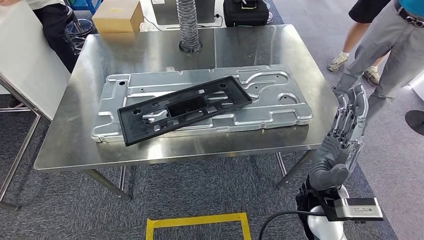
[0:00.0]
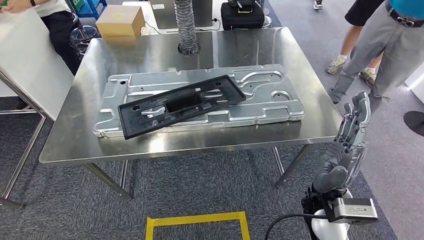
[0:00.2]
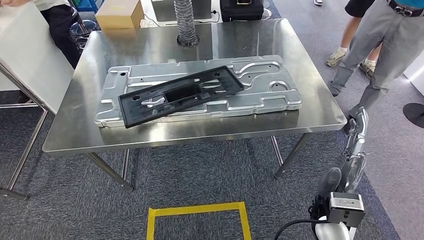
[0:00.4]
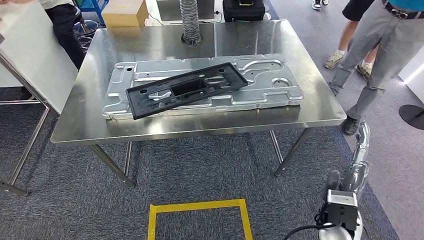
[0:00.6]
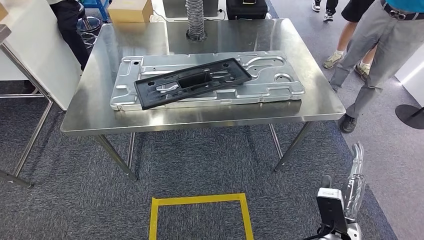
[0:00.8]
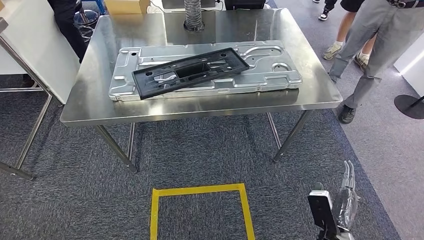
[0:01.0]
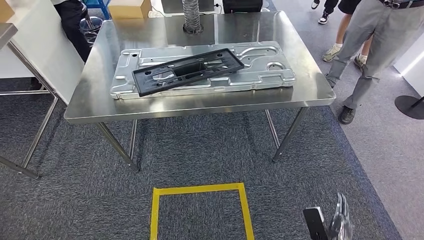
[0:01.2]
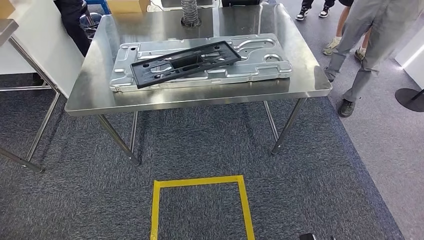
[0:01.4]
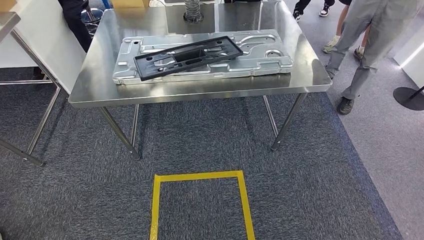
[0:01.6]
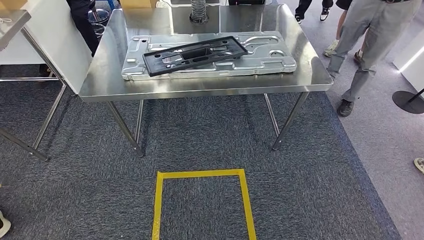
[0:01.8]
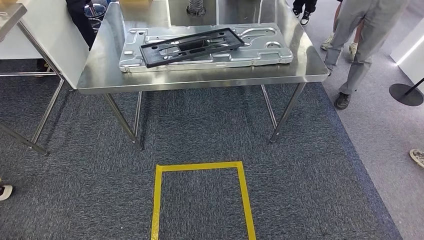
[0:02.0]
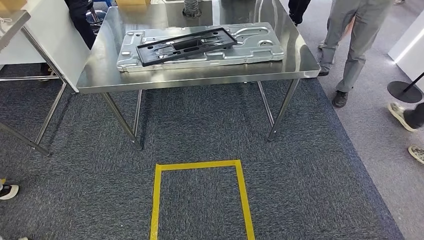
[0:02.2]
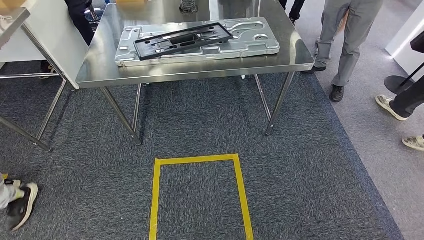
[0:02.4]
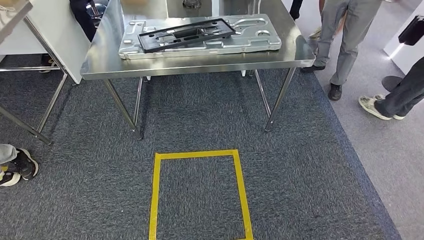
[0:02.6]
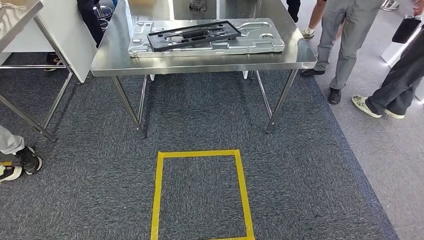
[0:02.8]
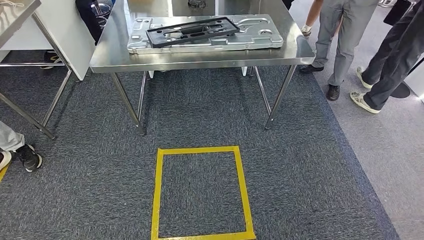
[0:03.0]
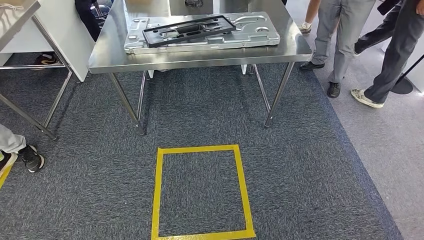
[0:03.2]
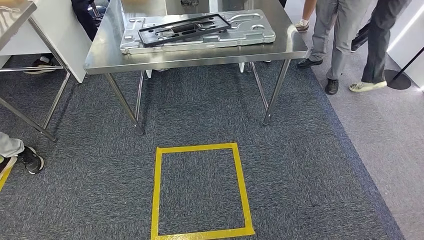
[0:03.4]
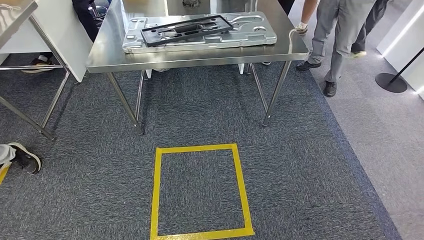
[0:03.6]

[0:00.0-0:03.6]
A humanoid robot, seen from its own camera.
Step, 0:00.0 to 0:03.6: Move to the initial position of the workbench.
